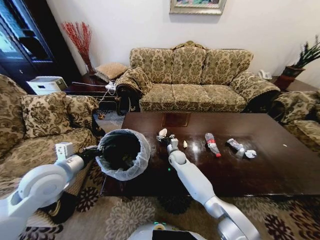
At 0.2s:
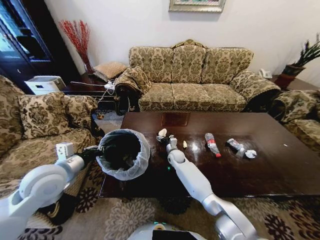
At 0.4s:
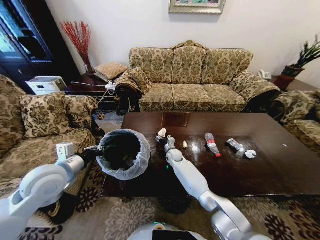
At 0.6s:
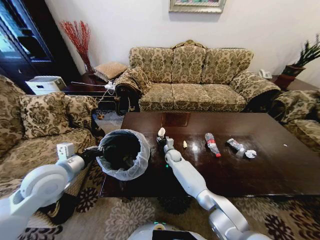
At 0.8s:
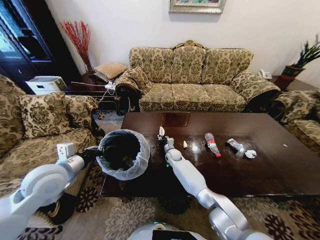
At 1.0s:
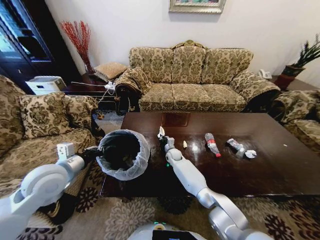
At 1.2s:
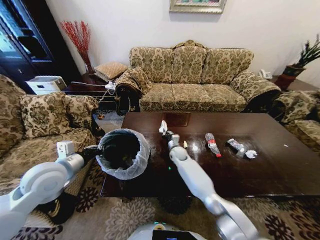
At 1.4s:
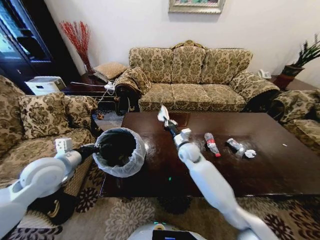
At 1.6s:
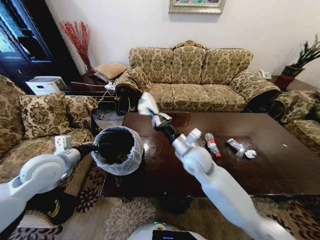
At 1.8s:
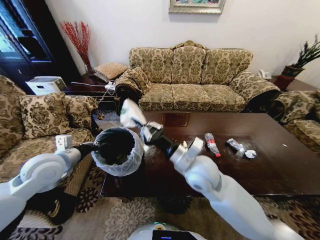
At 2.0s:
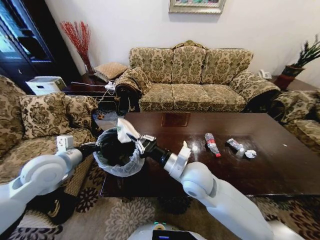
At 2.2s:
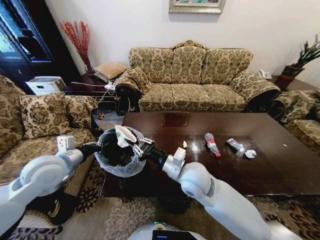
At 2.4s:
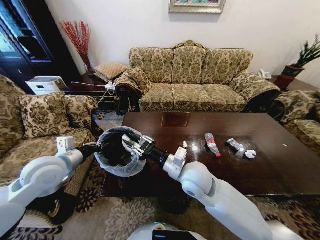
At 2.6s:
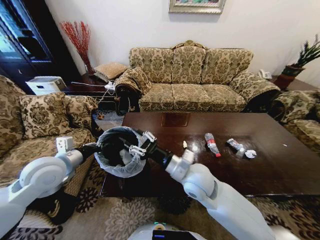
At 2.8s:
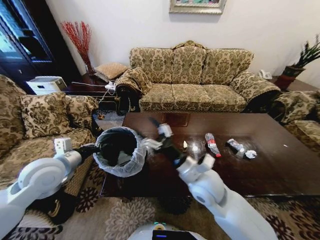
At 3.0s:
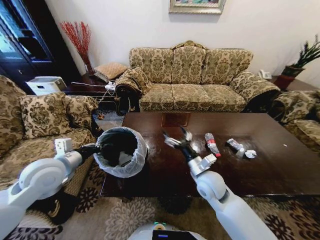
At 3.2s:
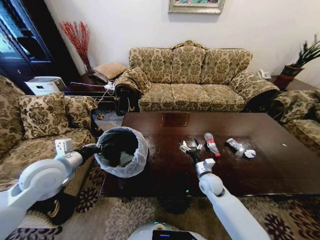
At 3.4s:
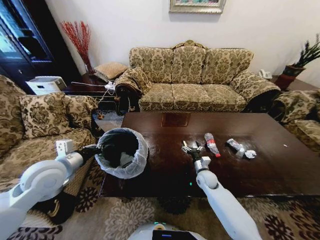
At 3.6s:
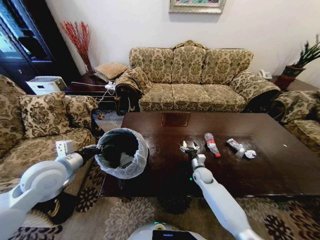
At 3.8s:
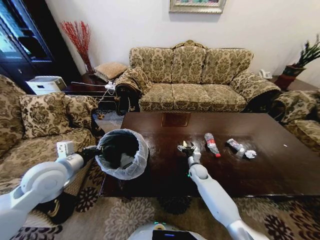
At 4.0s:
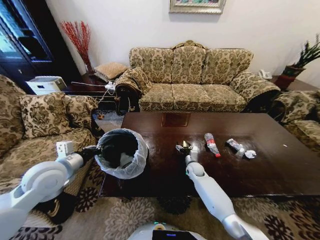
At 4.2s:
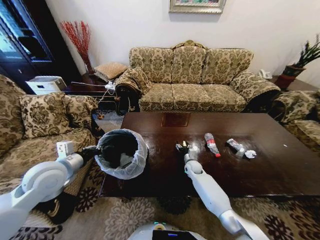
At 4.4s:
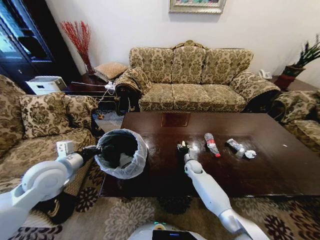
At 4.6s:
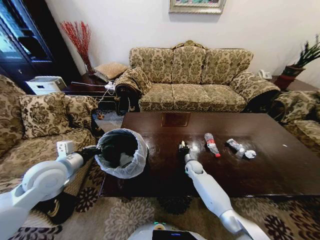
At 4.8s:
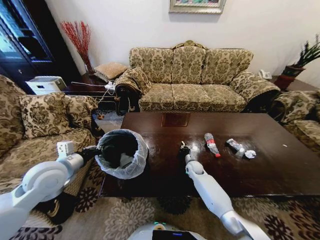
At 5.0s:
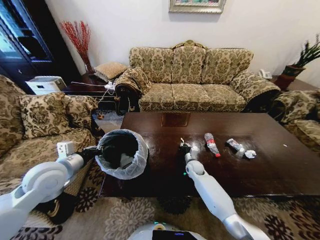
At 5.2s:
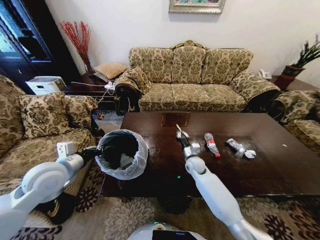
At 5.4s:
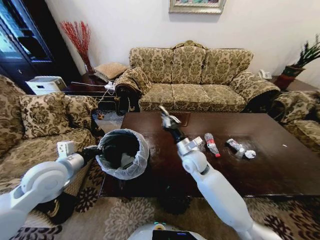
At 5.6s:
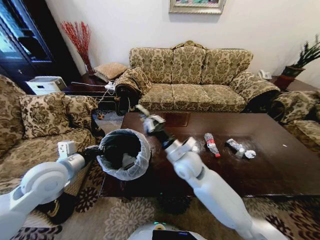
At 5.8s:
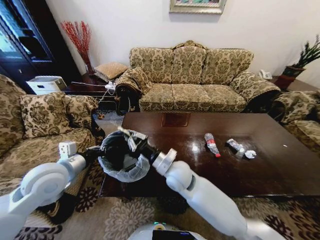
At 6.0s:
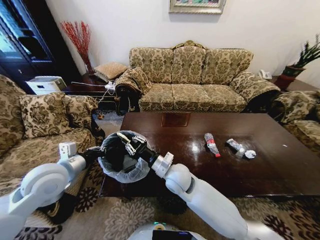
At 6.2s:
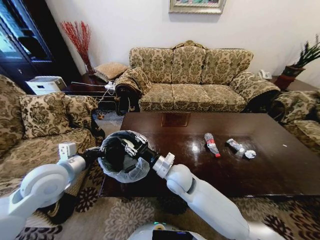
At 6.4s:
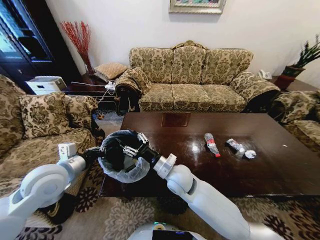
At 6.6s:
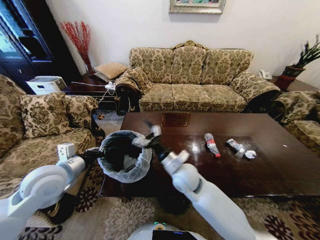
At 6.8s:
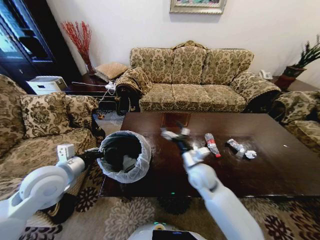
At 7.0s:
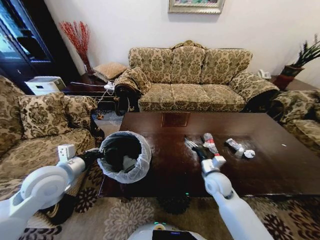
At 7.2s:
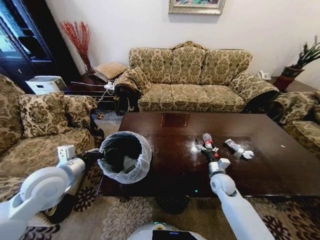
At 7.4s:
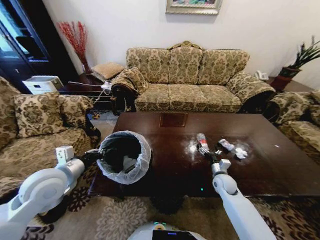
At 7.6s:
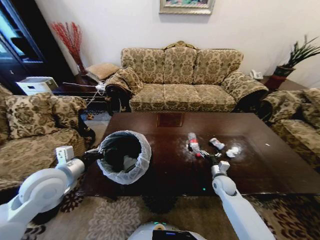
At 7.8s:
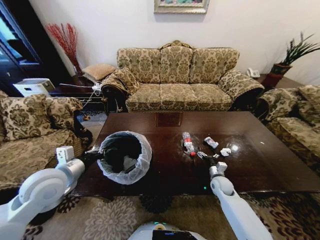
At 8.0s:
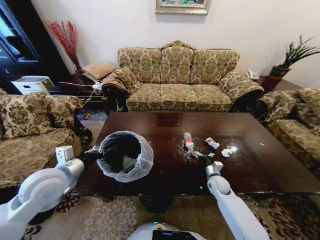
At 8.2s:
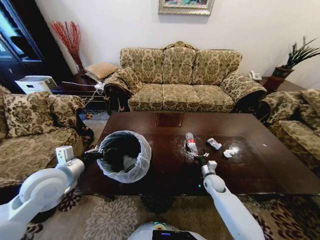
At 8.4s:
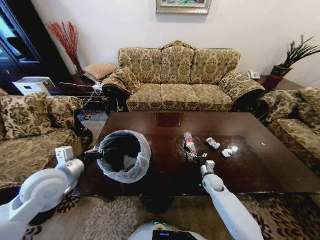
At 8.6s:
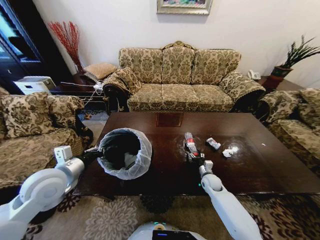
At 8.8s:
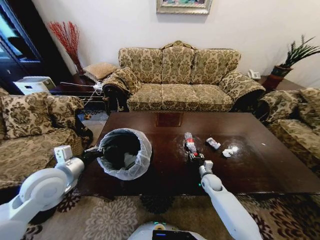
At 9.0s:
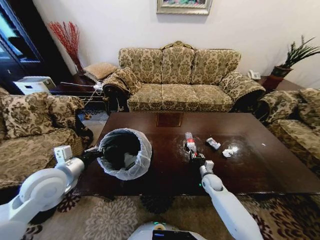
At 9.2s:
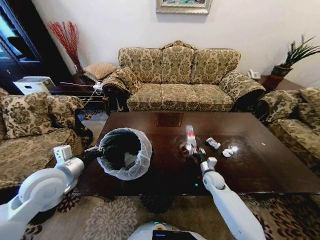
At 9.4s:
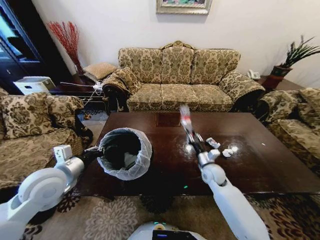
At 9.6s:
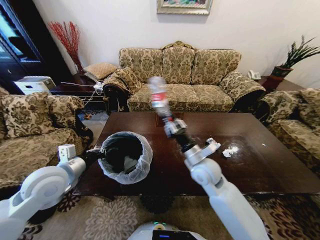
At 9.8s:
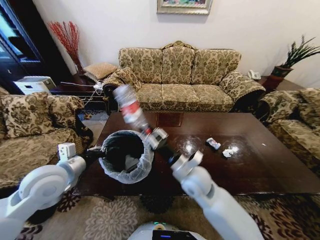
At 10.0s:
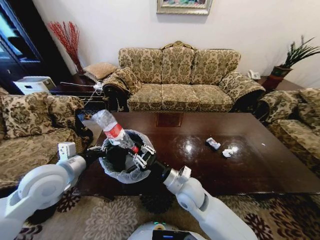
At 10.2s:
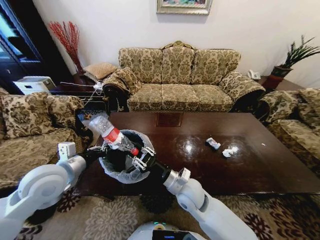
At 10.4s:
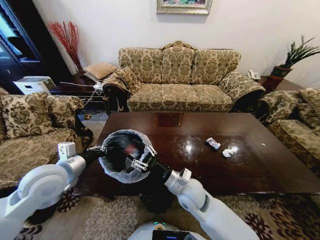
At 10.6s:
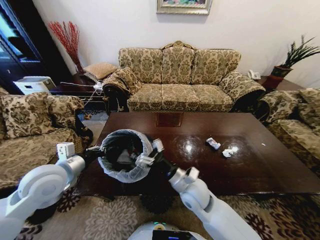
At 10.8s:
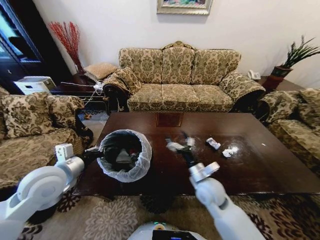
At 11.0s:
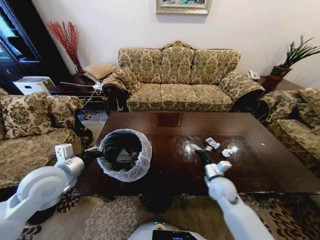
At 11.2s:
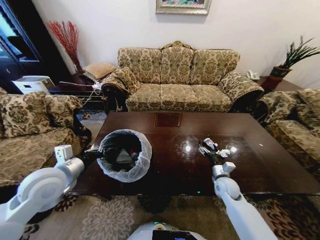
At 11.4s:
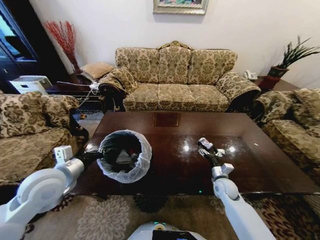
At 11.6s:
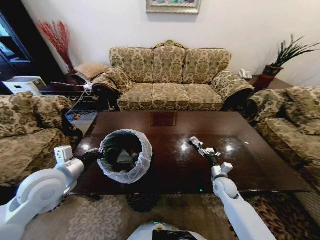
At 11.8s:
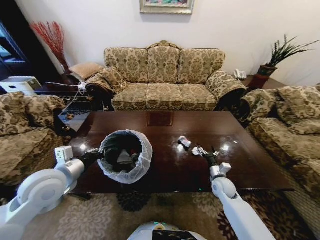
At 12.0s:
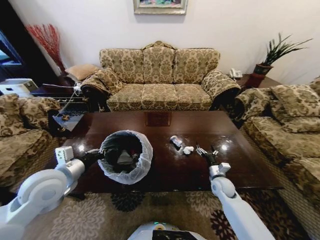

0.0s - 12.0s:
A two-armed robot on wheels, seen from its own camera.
Task of the whole recording: Move to the front of the table and place the trash on the table into the trash bin.
0.0s - 1.6s: The right gripper heads upward and backward, covering some 25 cm, and closes up.
1.6s - 3.0s: The right gripper shifts roughly 10 cm downward, to the right and backward, and opens its fingers.
3.0s - 4.4s: The right gripper heads downward and forward, covering roughly 25 cm, and closes its fingers.
4.4s - 6.0s: The right gripper moves upward, backward and to the left, approximately 30 cm, and closes its fingers.
6.0s - 7.6s: The right gripper shifts approximately 30 cm to the right and downward, and opens.
7.6s - 9.0s: The right gripper moves some 5 cm, and closes its fingers.
9.0s - 10.4s: The right gripper is displaced upward, to the left and backward by roughly 30 cm.
10.4s - 12.0s: The right gripper shifts about 25 cm to the right and downward, and opens its fingers.

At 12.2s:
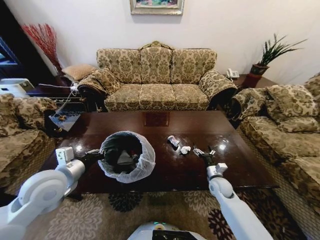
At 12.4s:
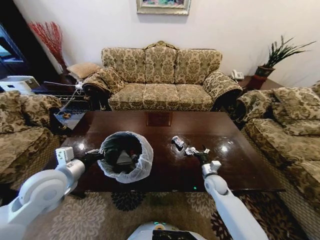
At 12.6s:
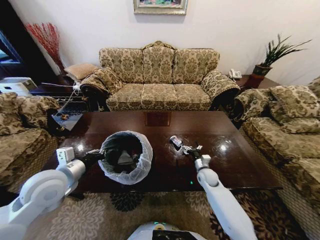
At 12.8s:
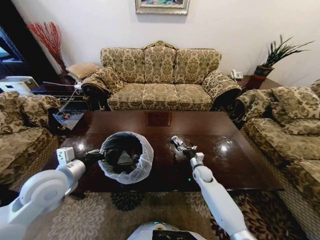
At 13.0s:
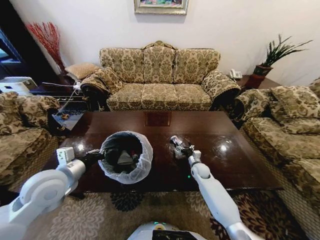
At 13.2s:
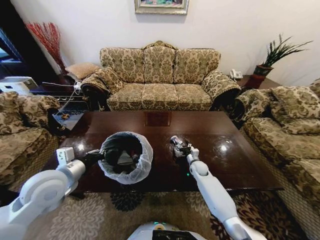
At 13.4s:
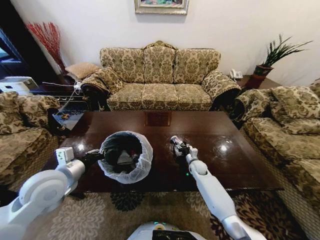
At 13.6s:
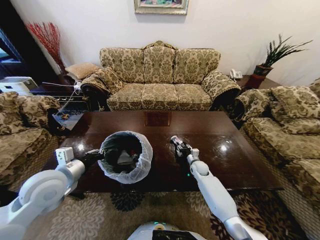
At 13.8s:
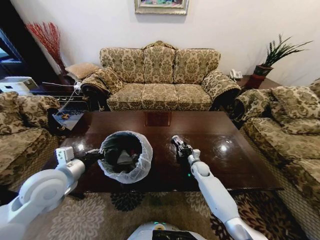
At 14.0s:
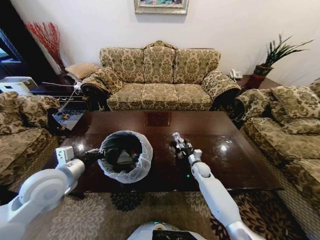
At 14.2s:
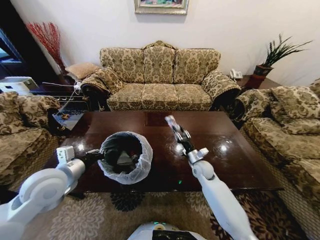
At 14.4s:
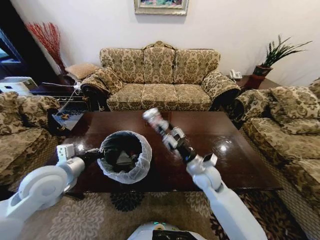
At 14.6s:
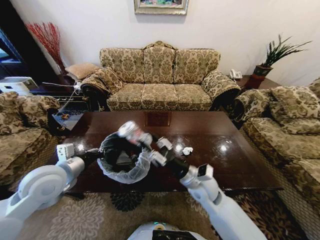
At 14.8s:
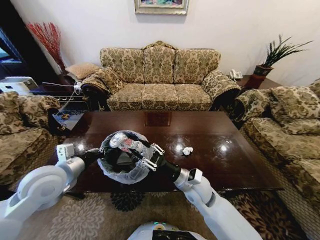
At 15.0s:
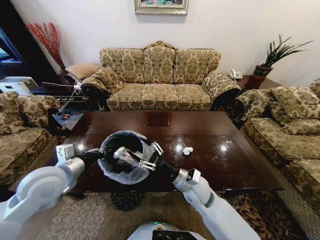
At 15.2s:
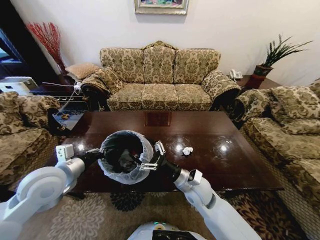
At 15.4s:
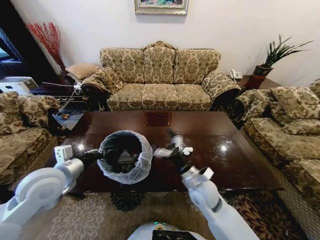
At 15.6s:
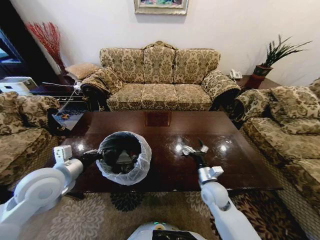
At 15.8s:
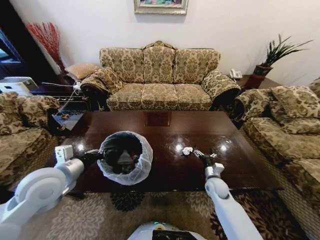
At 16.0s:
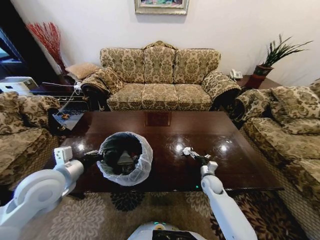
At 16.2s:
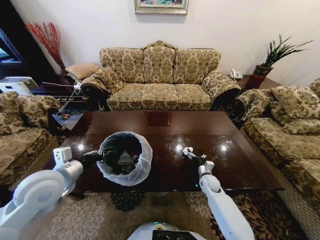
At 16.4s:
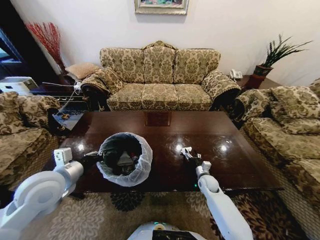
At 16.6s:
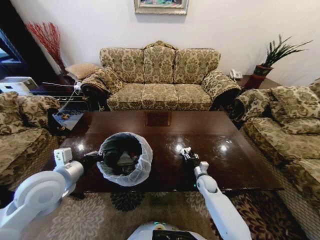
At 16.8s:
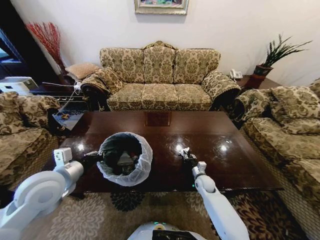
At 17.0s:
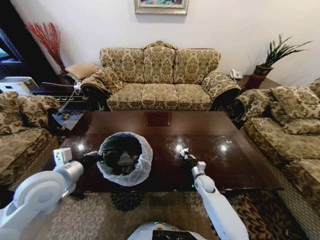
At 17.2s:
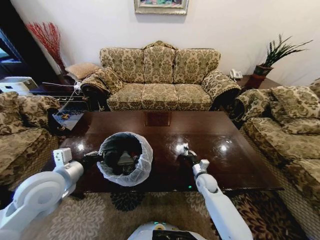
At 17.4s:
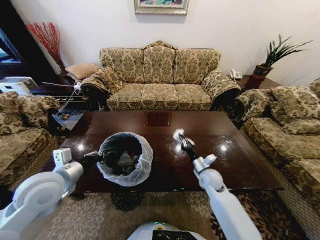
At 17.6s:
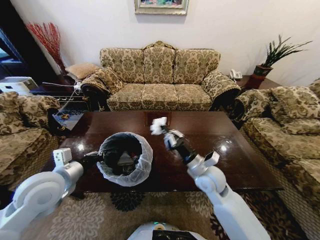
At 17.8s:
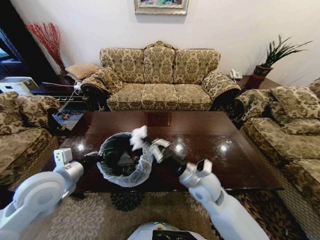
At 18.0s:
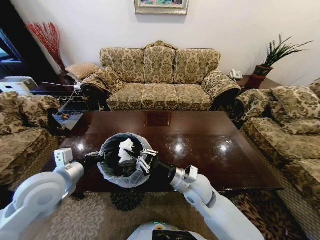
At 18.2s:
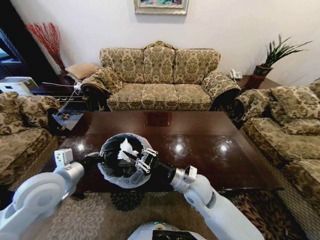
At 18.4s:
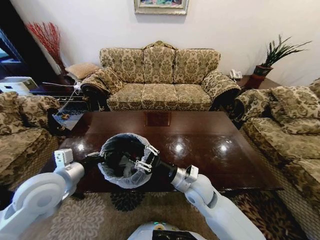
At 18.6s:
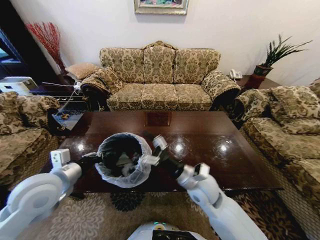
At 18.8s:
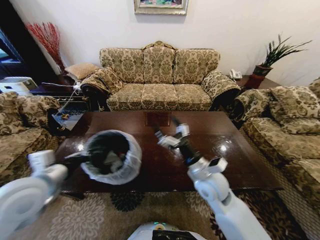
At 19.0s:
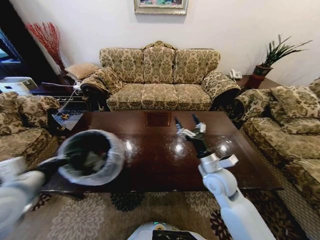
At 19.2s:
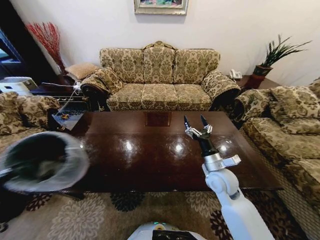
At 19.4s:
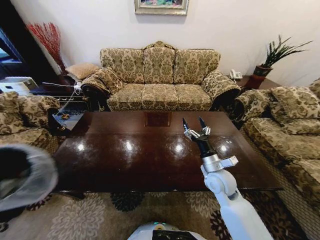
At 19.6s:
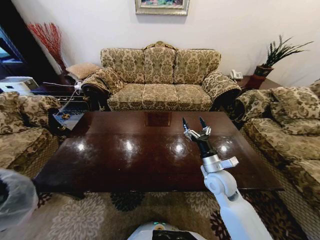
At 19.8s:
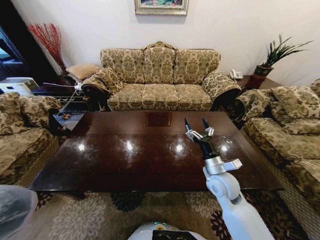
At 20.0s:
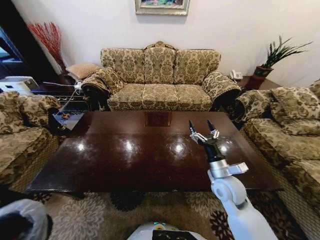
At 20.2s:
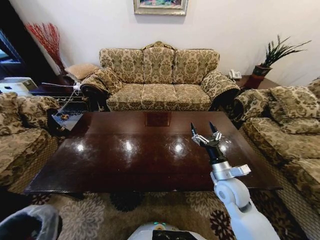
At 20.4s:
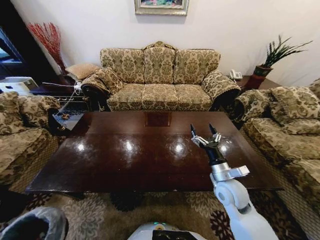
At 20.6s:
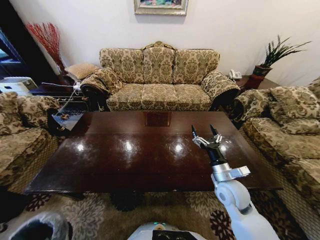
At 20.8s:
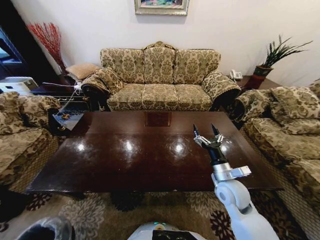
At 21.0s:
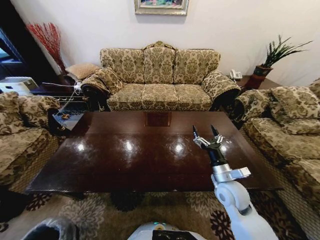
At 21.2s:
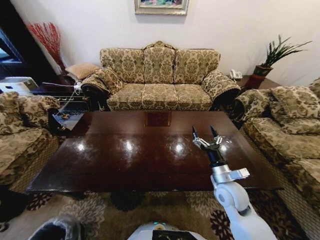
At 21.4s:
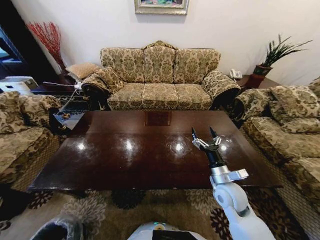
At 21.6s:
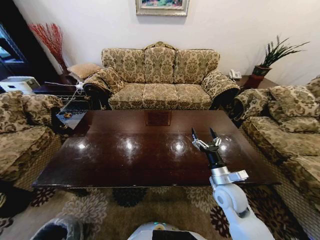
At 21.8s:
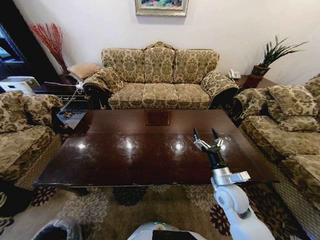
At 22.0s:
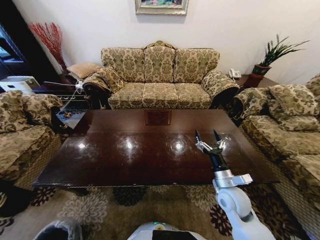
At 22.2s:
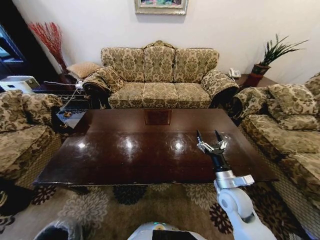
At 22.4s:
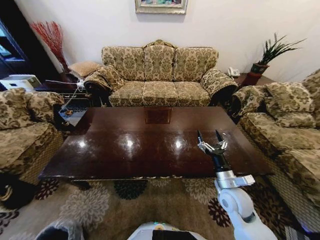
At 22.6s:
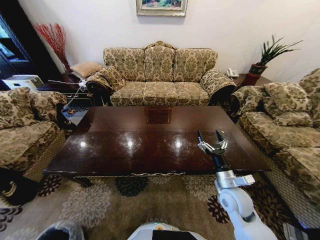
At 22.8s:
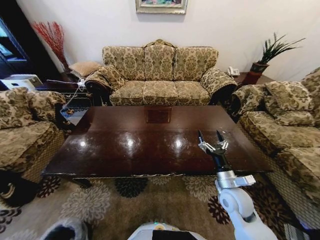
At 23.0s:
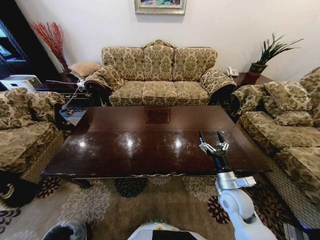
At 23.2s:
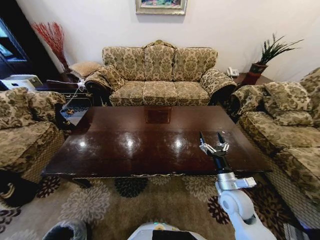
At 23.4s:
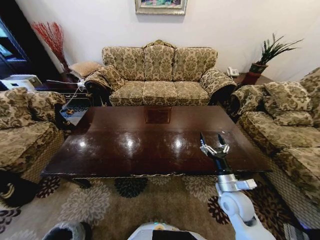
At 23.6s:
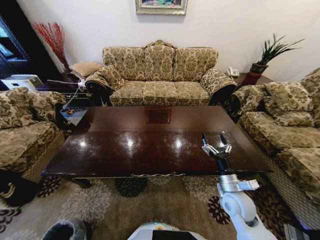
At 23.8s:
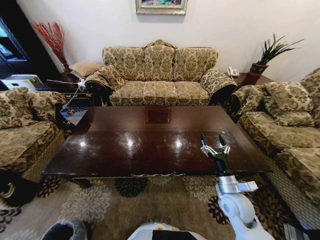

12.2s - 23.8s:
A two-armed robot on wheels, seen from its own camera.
Task of the whole recording: Move to the front of the table and place the trash on the table into the trash bin.
12.2s - 13.6s: The right gripper moves forward and to the left, some 15 cm, and closes its fingers.
13.6s - 15.0s: The right gripper travels backward, upward and to the left by some 25 cm.
15.0s - 16.6s: The right gripper heads downward, to the right and forward, covering some 25 cm, and opens, then closes once more.
16.6s - 18.0s: The right gripper heads upward, to the left and backward, covering some 30 cm, and closes.
18.0s - 19.4s: The right gripper shifts about 10 cm to the right, and opens up; the left gripper moves to the left and backward, some 25 cm.
19.4s - 21.0s: The left gripper is displaced downward by approximately 40 cm.
21.0s - 22.4s: The left gripper moves downward, about 5 cm.
22.4s - 23.8s: The left gripper goes roughly 10 cm backward, and opens.
